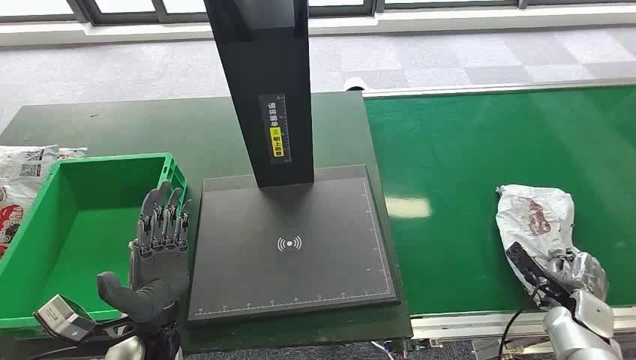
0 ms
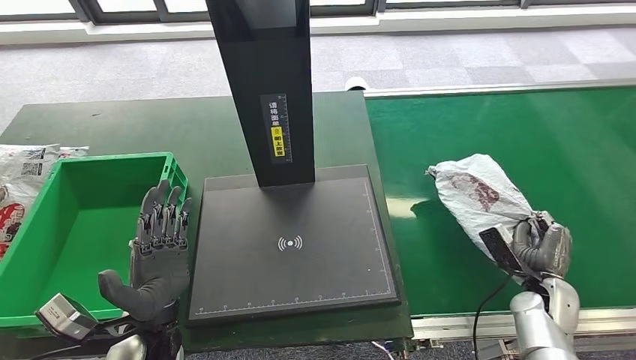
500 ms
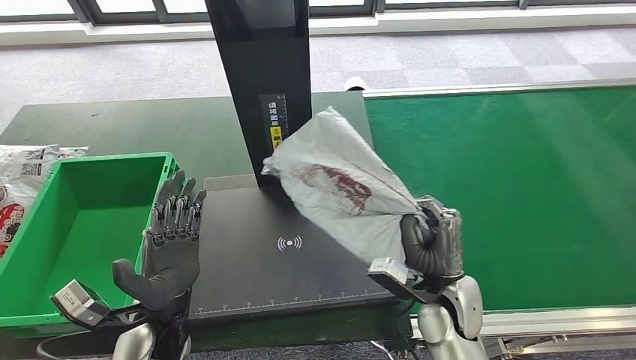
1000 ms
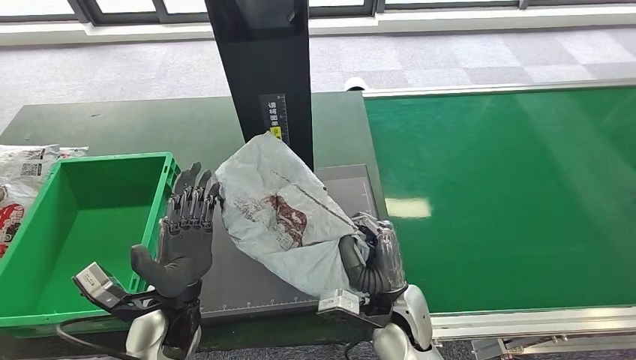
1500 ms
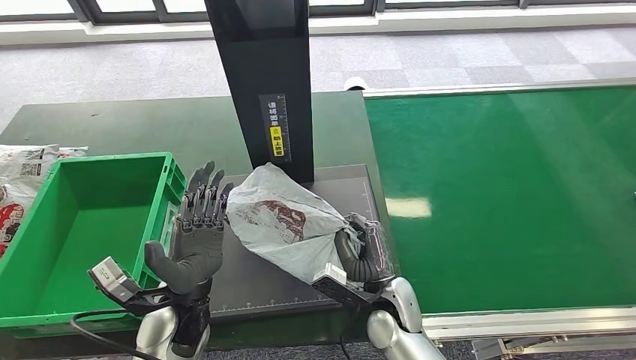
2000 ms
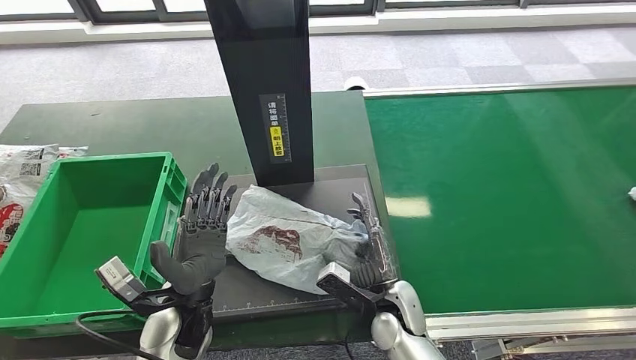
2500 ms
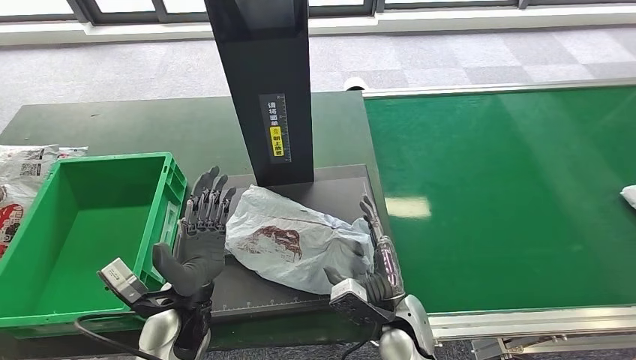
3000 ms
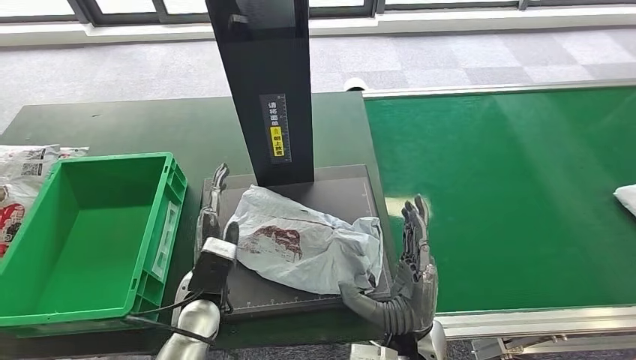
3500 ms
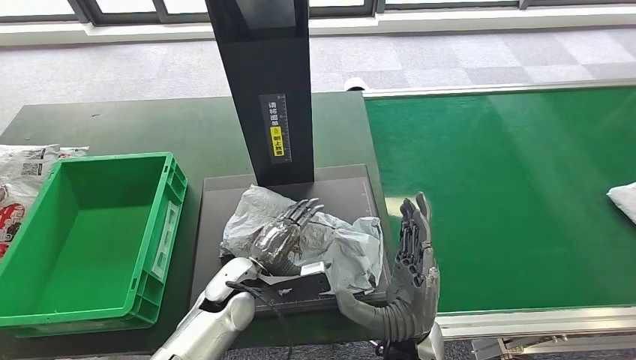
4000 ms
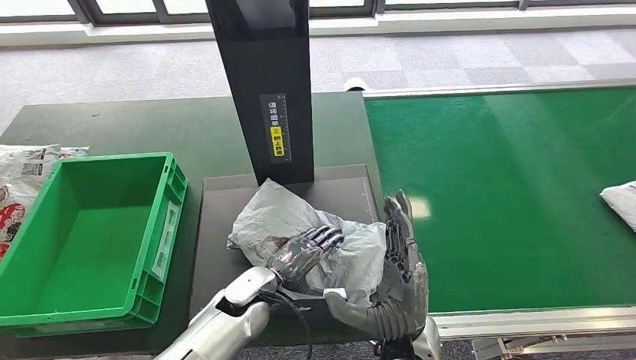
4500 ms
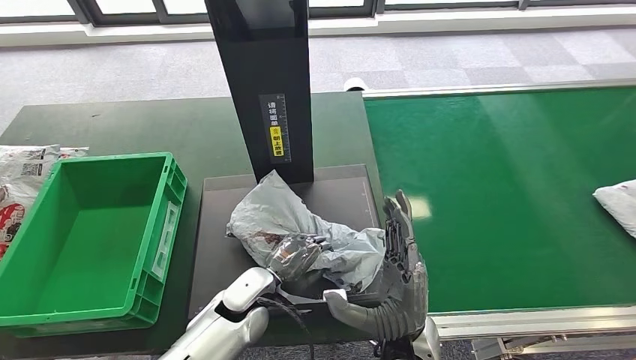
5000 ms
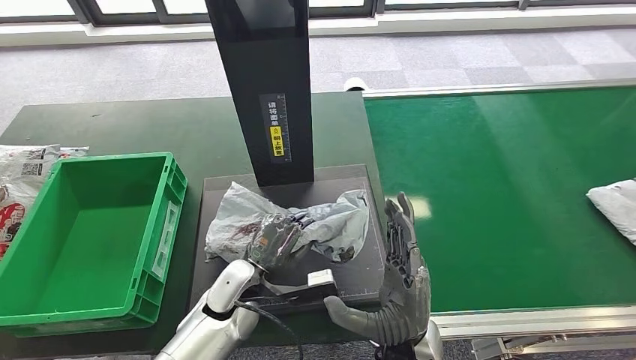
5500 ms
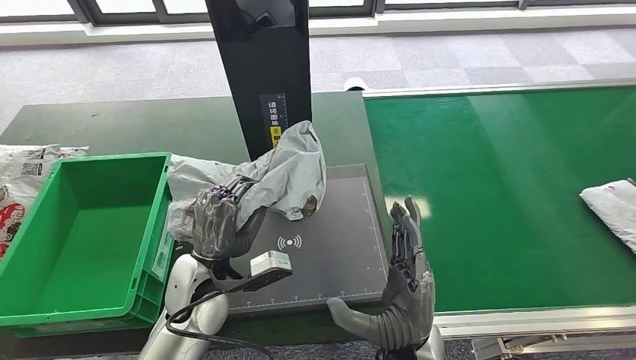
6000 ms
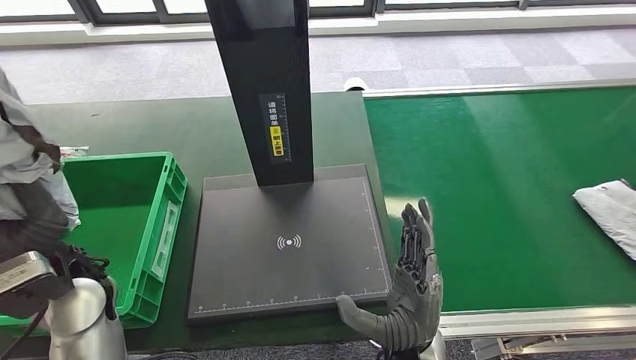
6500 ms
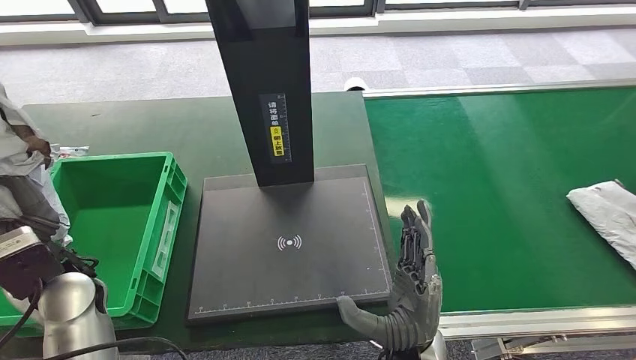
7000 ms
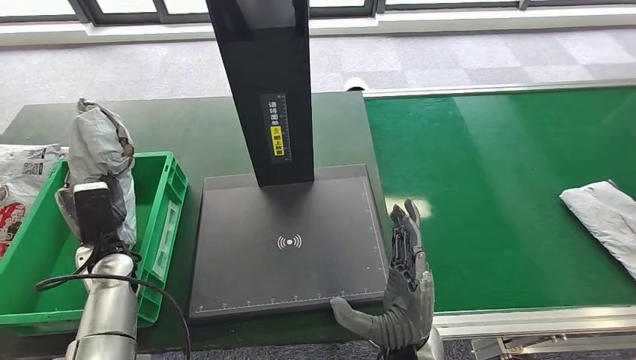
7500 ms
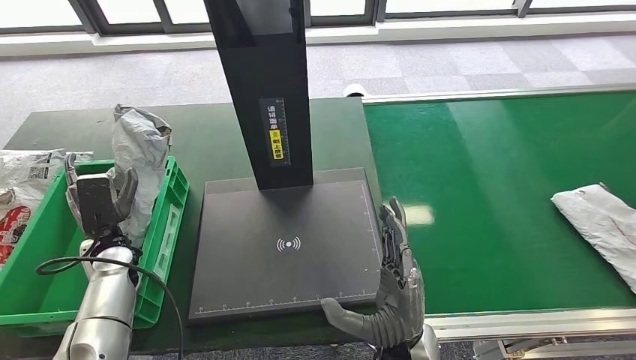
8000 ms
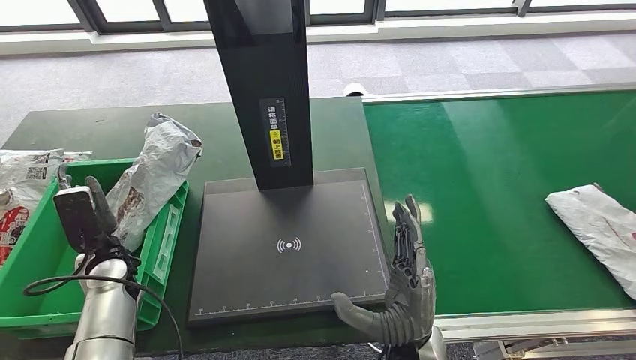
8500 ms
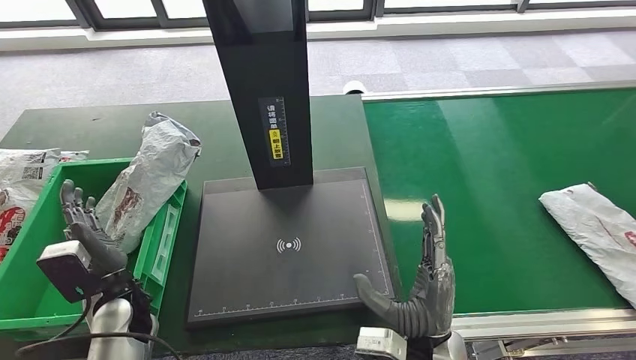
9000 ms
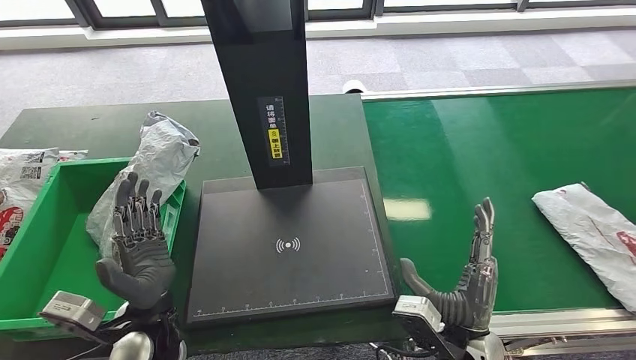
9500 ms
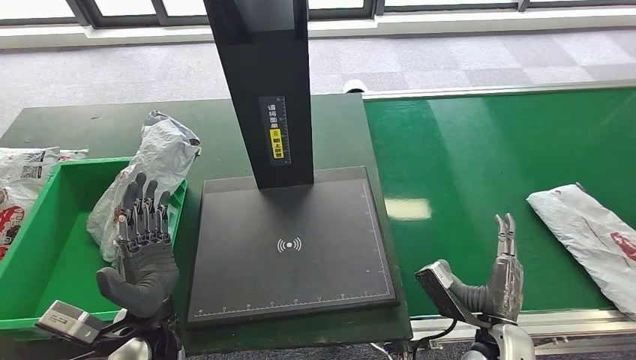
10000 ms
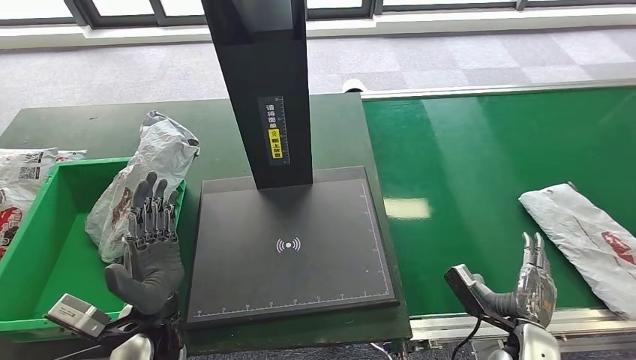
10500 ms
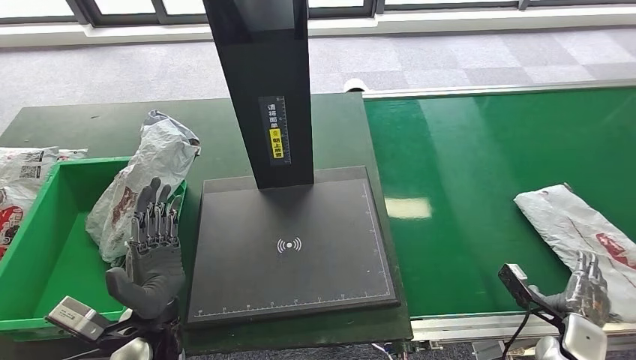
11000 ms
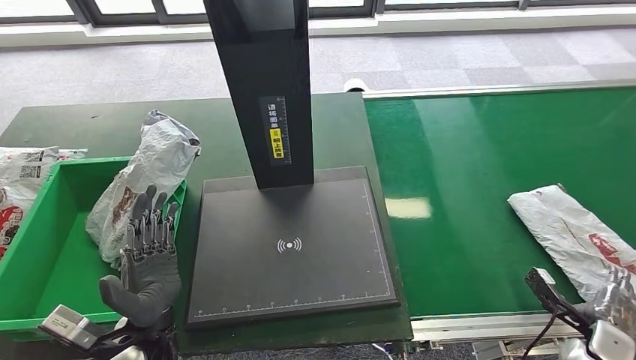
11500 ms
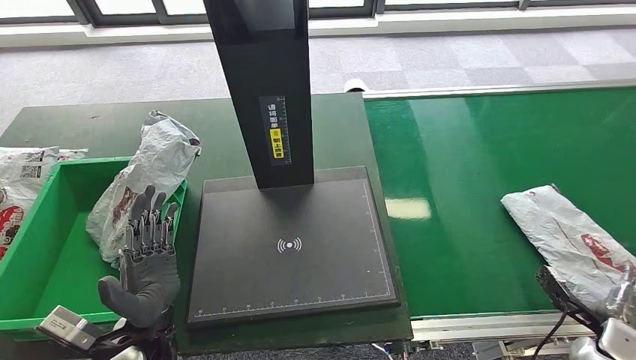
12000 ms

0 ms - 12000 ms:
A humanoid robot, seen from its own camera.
Step, 0 ms - 1000 ms: Take the parcel off the conveyor belt.
Step, 1500 ms - 4000 ms: Place the parcel onto the inbound machine.
Step, 4500 ms - 6500 ms: Pick up the parcel from the inbound machine.
Step, 7000 ms - 9500 ms: Put the parcel inside the courier box.
2000 ms - 4000 ms: The right hand travels upward and backward by some 10 cm; the left hand shifts some 5 cm to the right.
4000 ms - 6000 ms: The left hand goes some 5 cm upward.
10000 ms - 12000 ms: The right hand heads to the right, covering some 25 cm.

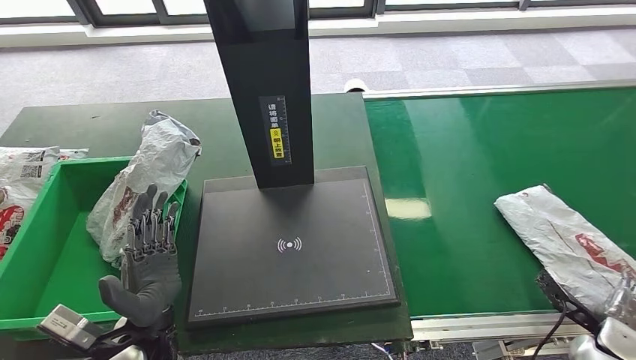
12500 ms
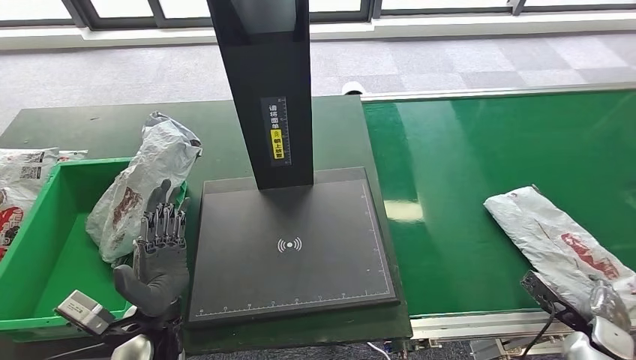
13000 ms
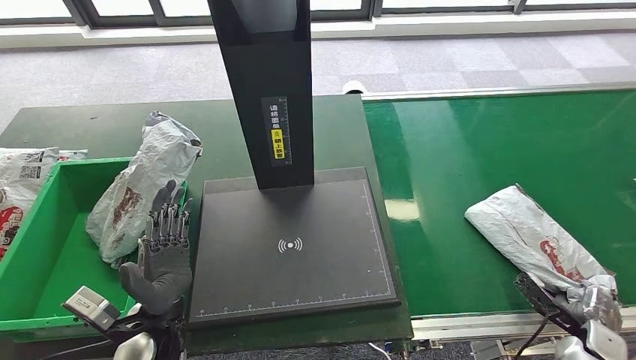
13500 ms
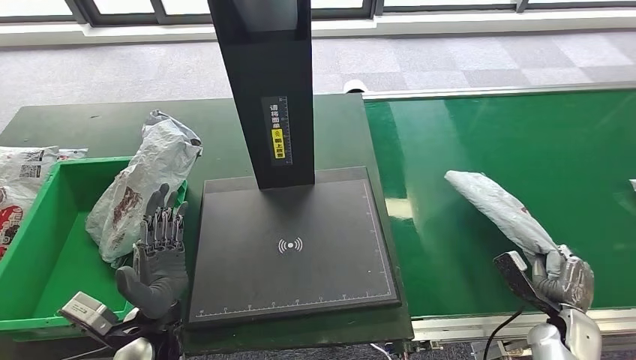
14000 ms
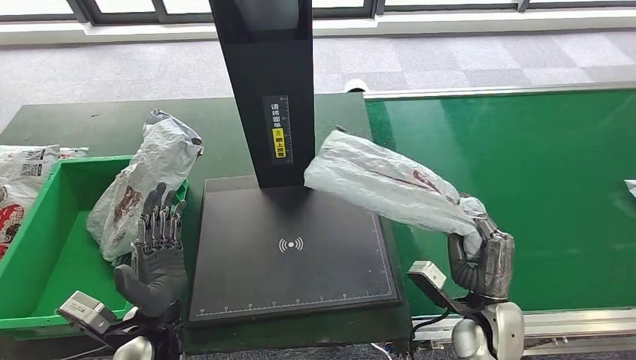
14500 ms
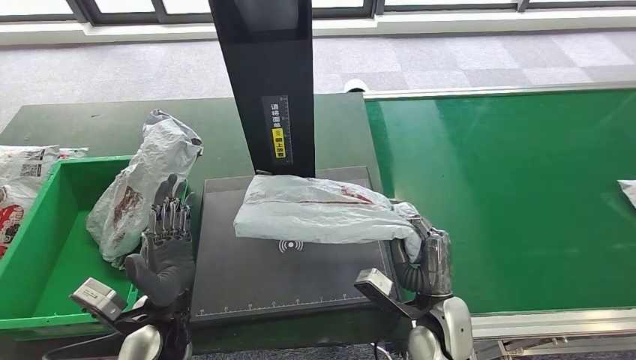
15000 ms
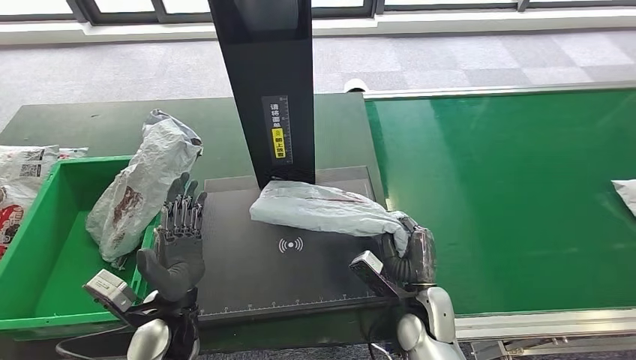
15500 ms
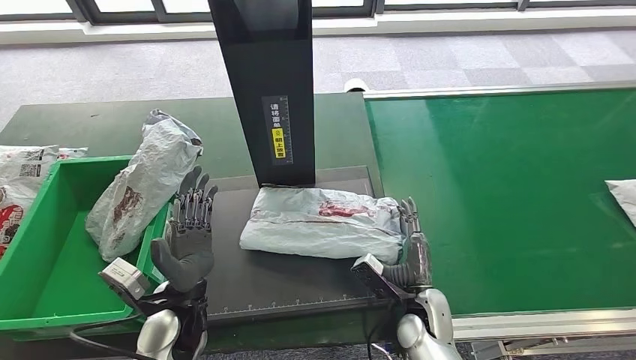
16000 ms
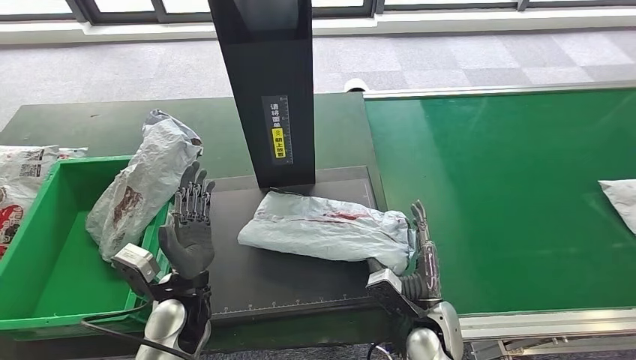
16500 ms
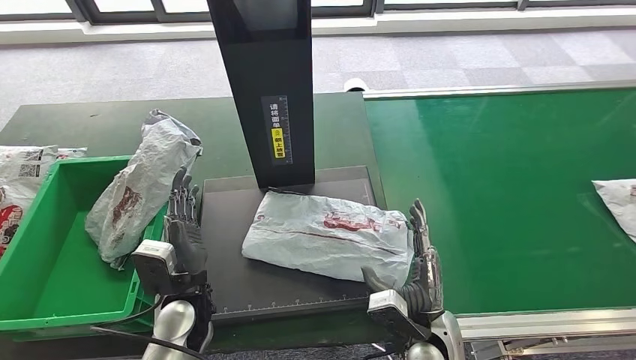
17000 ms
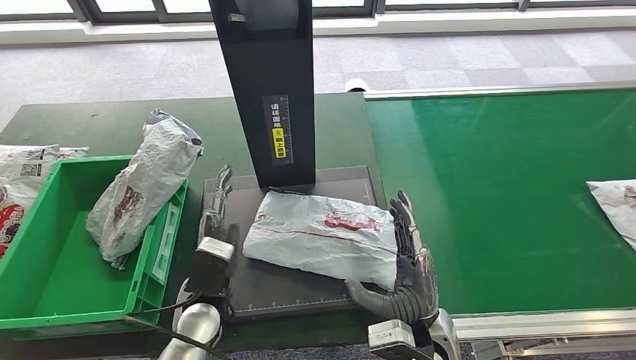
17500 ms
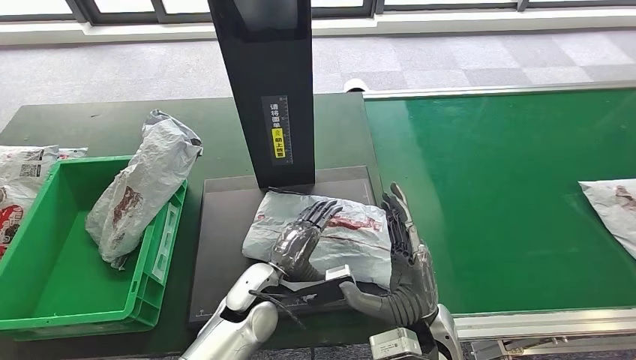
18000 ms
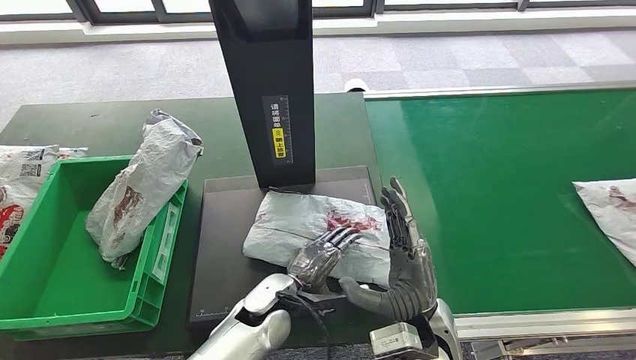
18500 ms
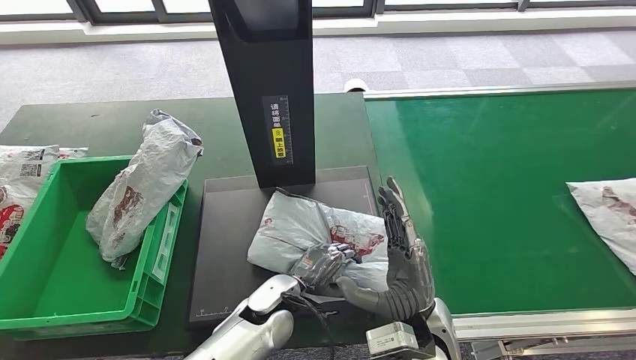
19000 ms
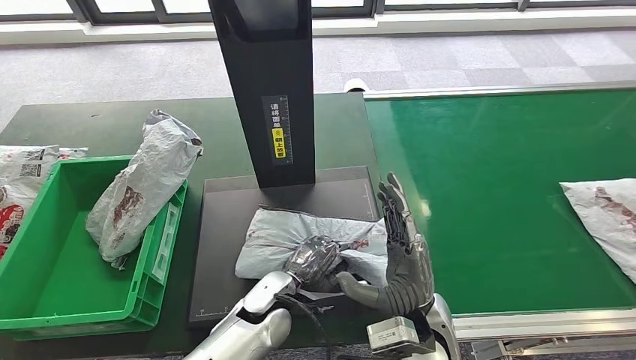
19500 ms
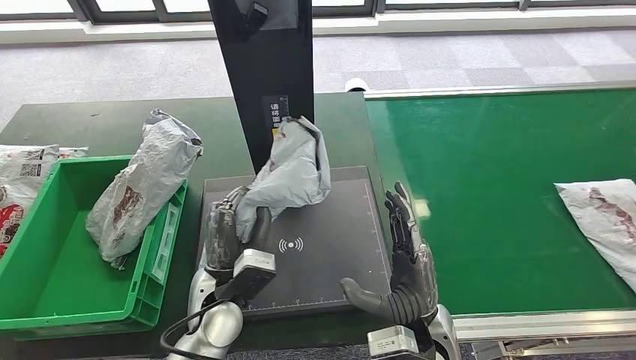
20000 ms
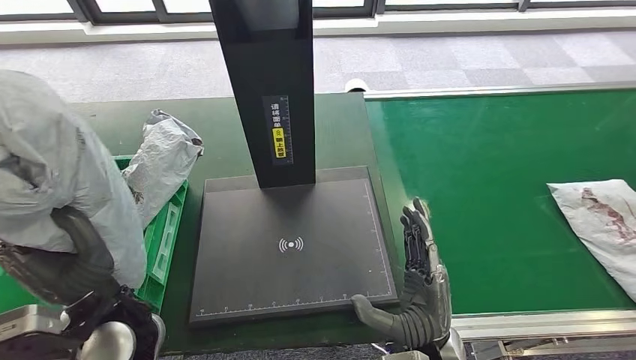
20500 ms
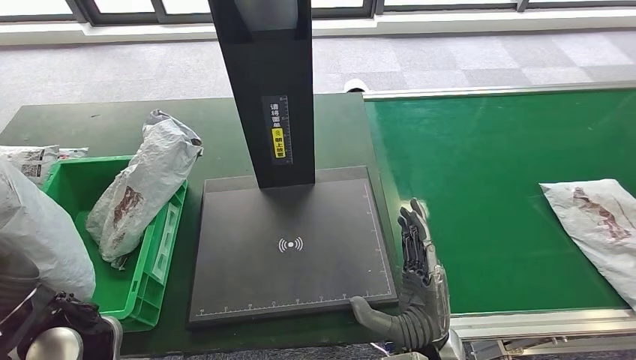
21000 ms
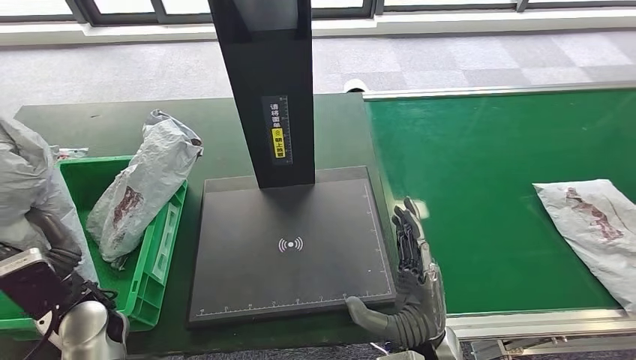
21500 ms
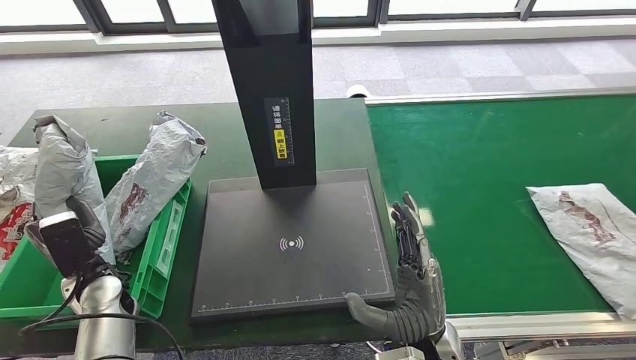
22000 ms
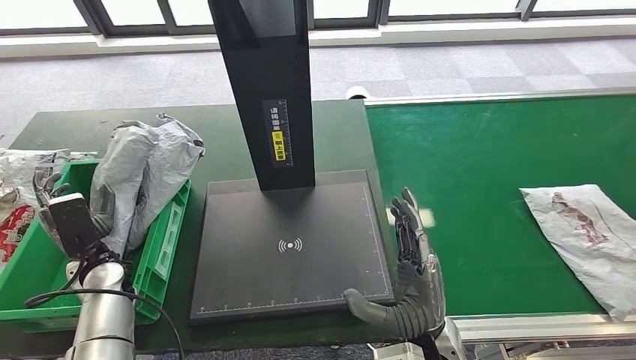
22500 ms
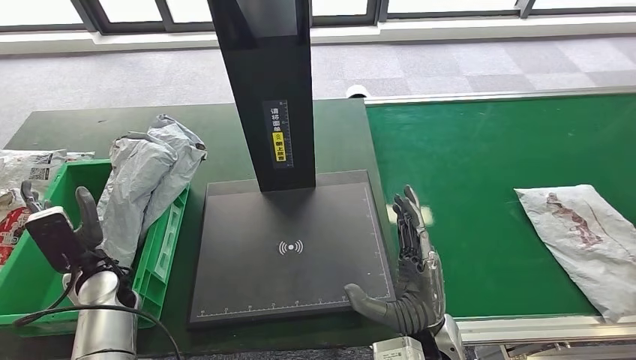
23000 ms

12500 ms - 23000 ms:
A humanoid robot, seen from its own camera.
Step, 12500 ms - 15000 ms: Pick up the parcel from the conveyor belt.
Step, 15500 ms - 17500 ms: Place the parcel onto the inbound machine.
Step, 18000 ms - 20000 ms: Pick up the parcel from the inbound machine.
16500 ms - 19000 ms: The left hand is displaced to the right by about 15 cm, while the right hand shifts some 10 cm upward.
